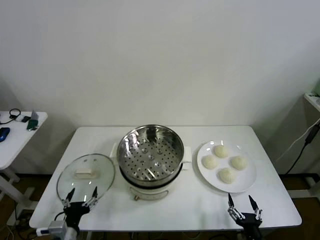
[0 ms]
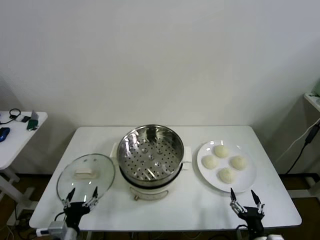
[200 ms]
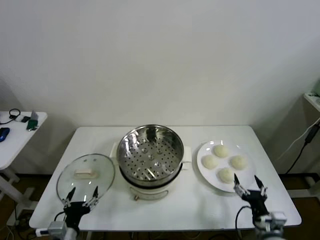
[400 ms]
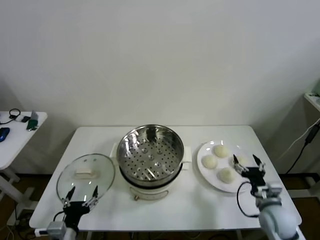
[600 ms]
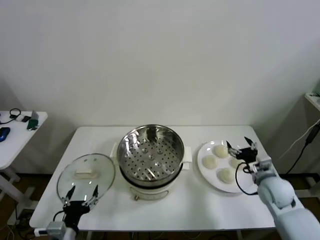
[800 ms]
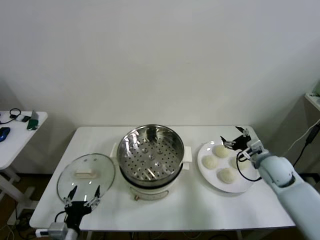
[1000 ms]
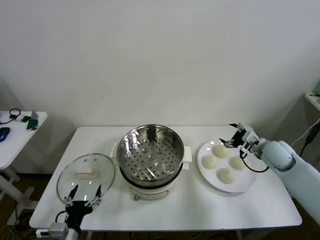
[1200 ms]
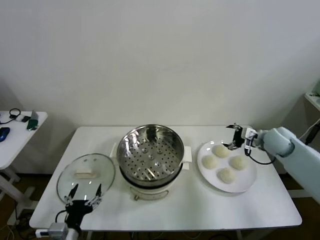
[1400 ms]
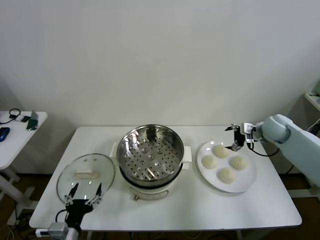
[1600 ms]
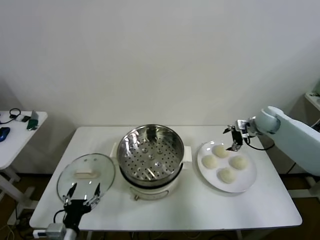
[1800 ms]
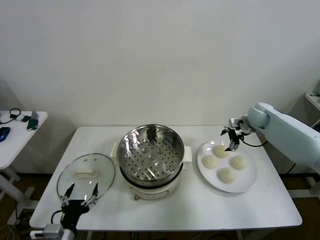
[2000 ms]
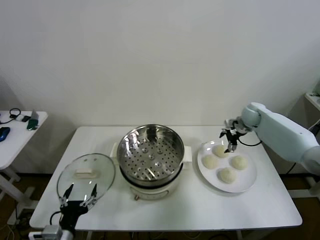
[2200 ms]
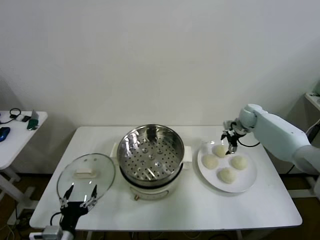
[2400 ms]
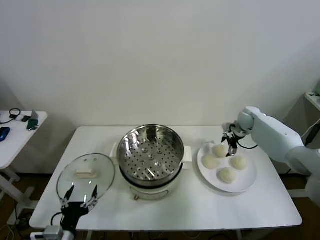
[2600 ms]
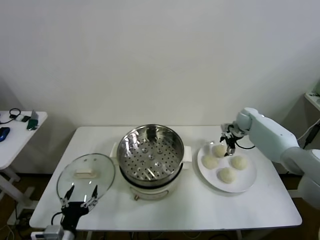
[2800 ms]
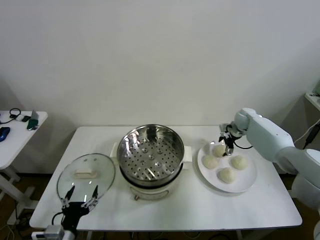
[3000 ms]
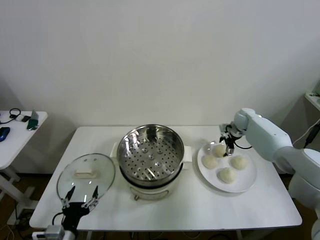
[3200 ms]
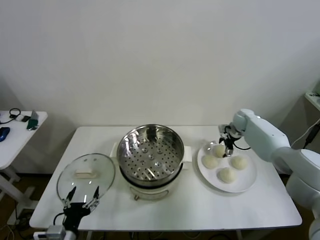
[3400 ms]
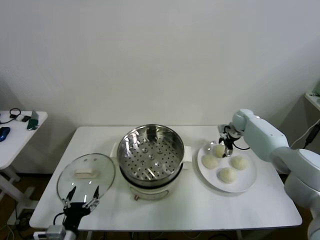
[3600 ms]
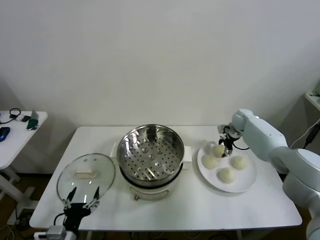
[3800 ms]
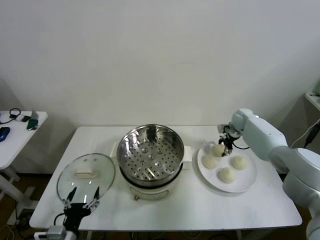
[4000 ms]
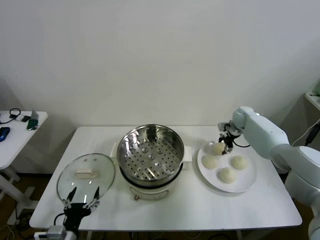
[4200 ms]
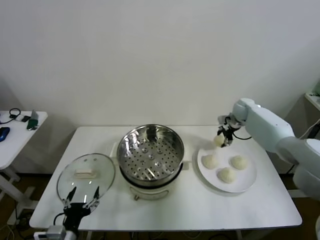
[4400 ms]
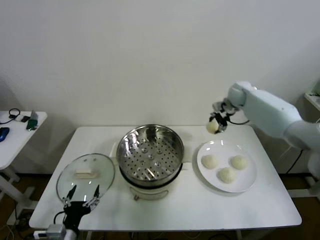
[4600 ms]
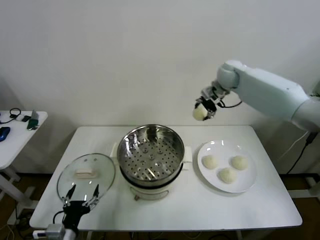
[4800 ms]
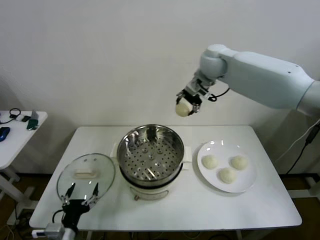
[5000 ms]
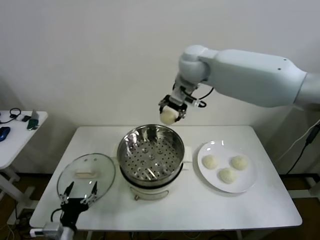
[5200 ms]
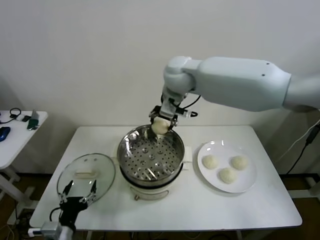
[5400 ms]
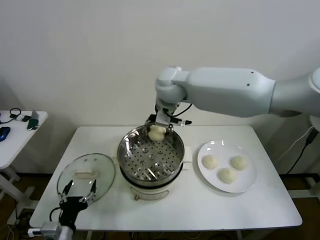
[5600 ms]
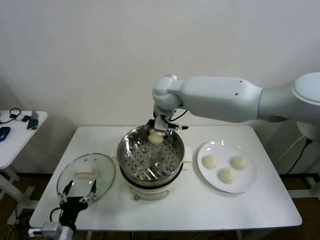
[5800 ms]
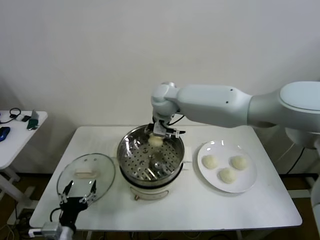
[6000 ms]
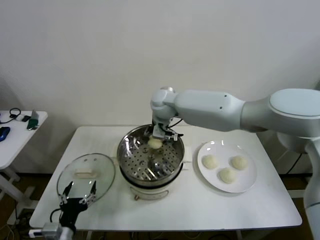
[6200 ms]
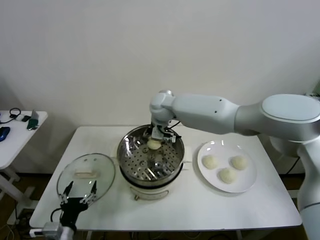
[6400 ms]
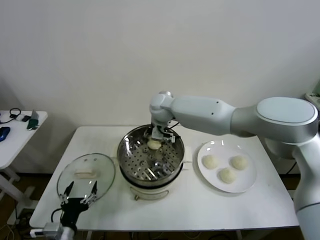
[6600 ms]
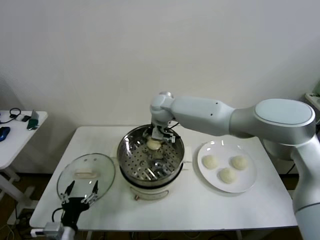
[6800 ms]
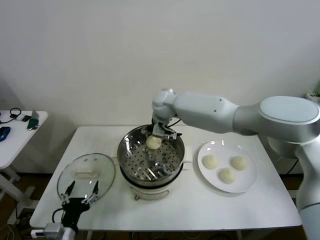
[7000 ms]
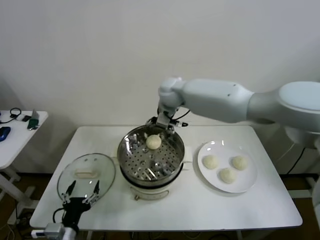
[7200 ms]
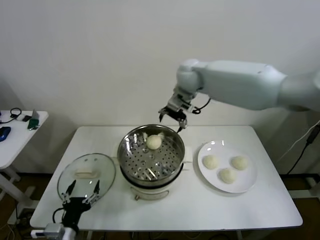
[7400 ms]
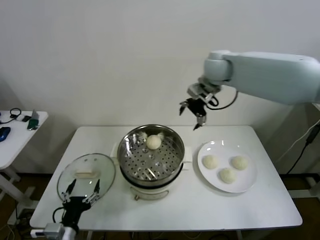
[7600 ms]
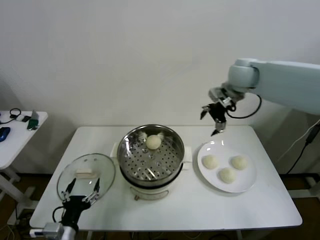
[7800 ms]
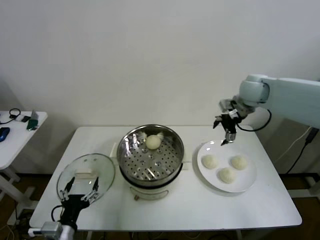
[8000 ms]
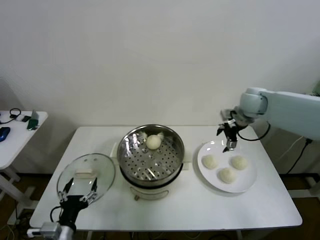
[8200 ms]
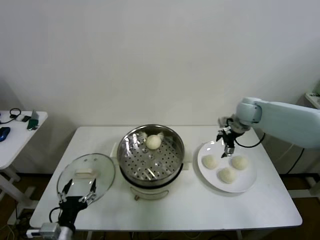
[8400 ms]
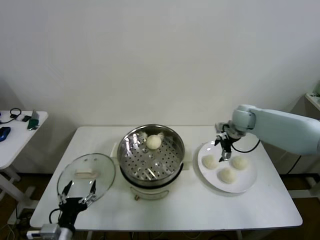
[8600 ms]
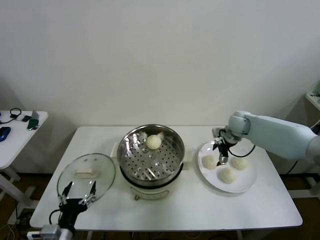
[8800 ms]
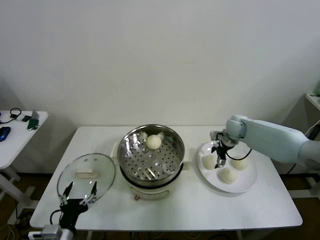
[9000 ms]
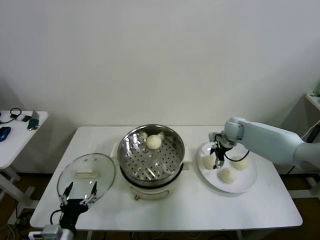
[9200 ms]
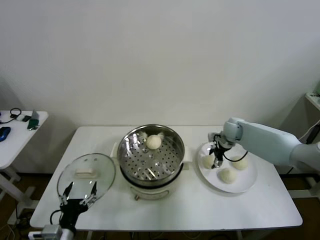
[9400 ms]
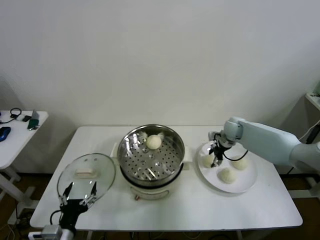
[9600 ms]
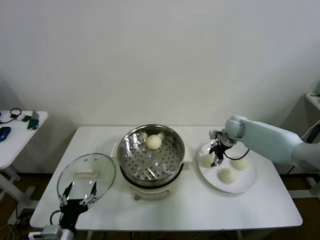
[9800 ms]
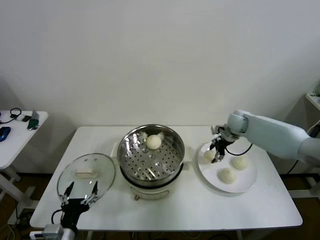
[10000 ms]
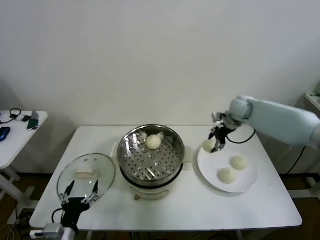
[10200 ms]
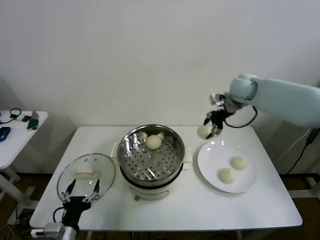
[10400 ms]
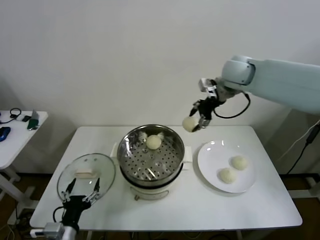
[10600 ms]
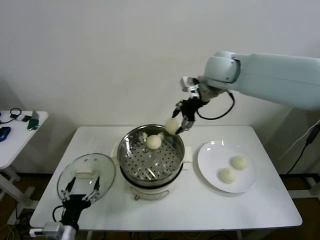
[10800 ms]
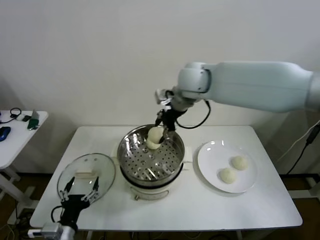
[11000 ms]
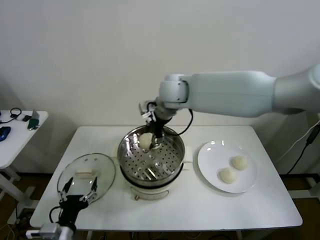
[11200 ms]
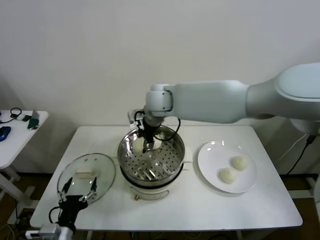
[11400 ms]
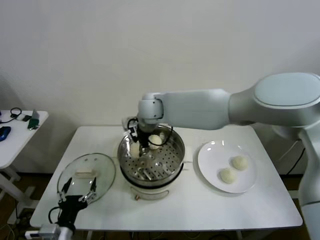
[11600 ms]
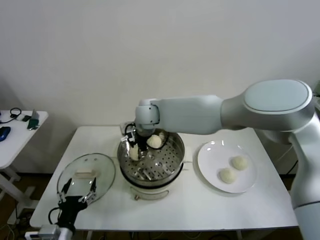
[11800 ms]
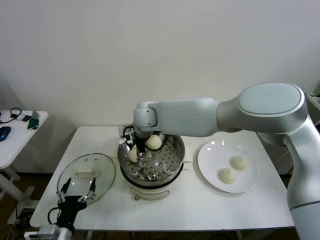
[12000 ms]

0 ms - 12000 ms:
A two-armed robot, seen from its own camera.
Step, 0 ms - 3600 ms: Grasp the baozi in the plate with right gripper.
Step, 3800 ms - 6800 ms: Place the baozi on the steamer with right gripper.
Step, 7000 ms - 9200 ms: Grasp the baozi in the plate with right gripper.
Step, 9600 ms - 11800 ms: Place the baozi on the steamer with right gripper.
1600 ms - 3000 ms: The right gripper travels forward and downward by some 10 cm.
3000 ms - 4400 ms: The right gripper is displaced upward by roughly 10 cm, and closes.
4400 ms - 6000 ms: The right gripper travels to the left by roughly 30 cm.
6000 ms - 7600 ms: The right gripper moves to the right and upward, approximately 25 cm, and opens.
7600 ms - 9000 ms: The right gripper heads downward, covering some 25 cm.
9000 ms - 10400 ms: The right gripper shifts approximately 20 cm upward, and closes its fingers.
10400 ms - 12000 ms: The right gripper travels to the left by some 30 cm, and opens up.

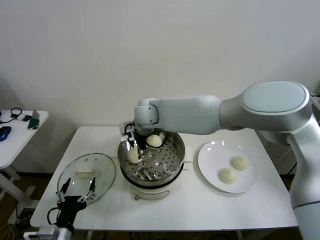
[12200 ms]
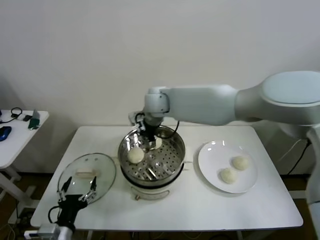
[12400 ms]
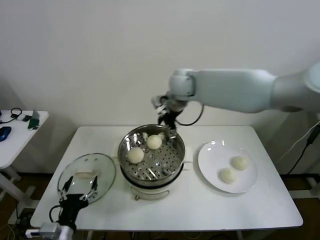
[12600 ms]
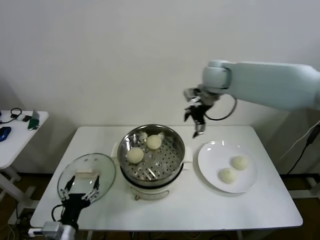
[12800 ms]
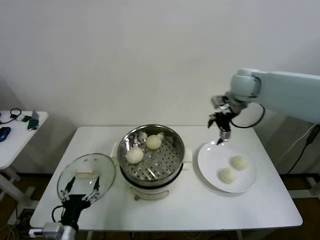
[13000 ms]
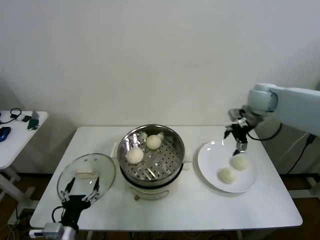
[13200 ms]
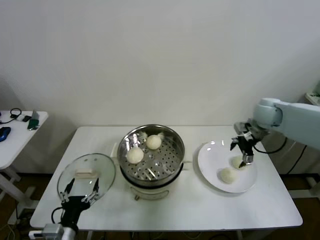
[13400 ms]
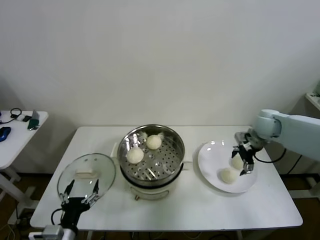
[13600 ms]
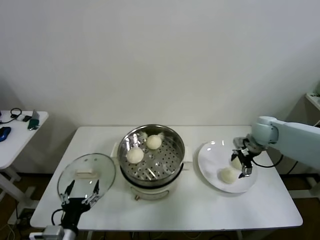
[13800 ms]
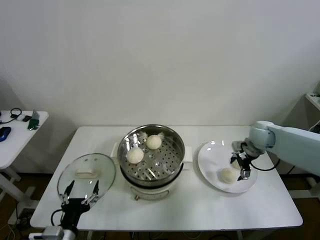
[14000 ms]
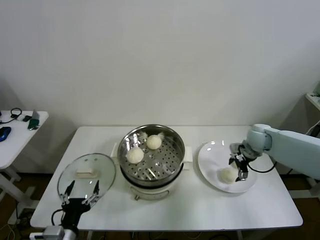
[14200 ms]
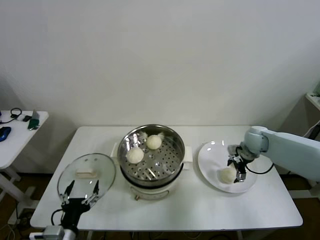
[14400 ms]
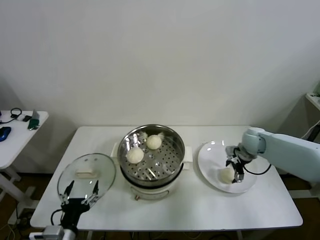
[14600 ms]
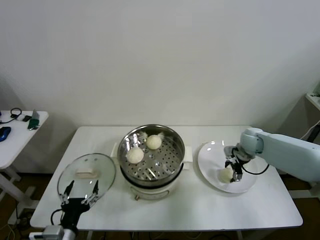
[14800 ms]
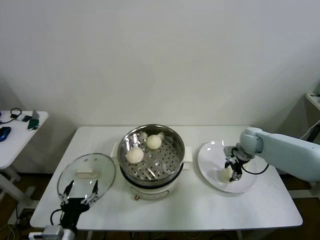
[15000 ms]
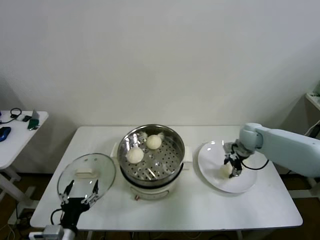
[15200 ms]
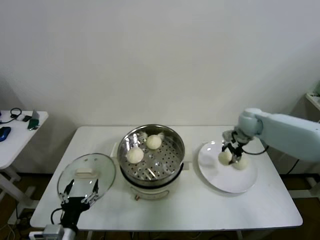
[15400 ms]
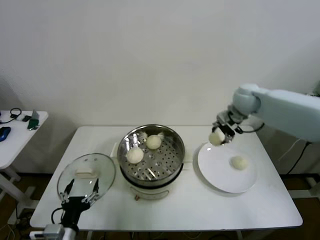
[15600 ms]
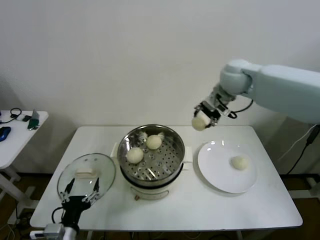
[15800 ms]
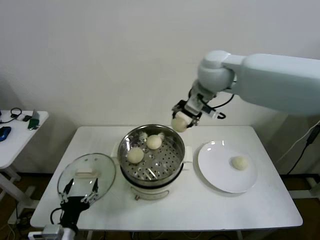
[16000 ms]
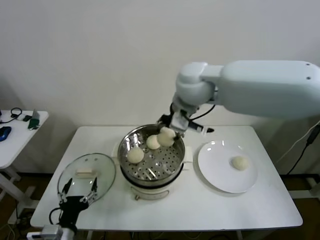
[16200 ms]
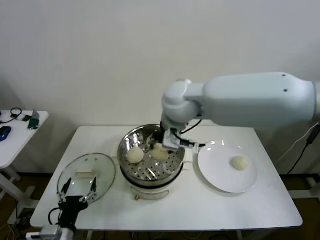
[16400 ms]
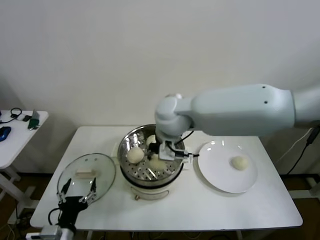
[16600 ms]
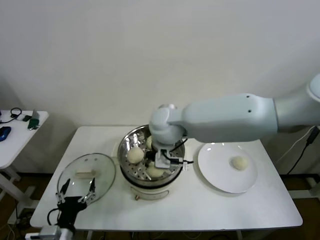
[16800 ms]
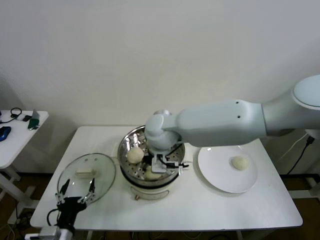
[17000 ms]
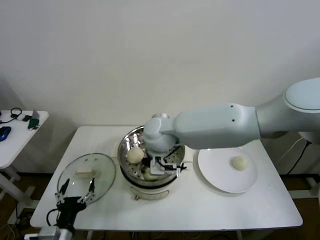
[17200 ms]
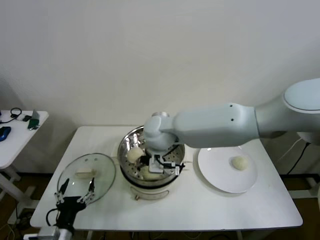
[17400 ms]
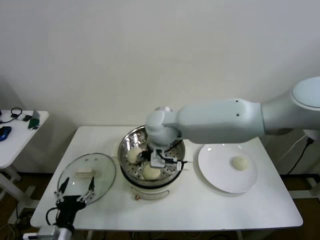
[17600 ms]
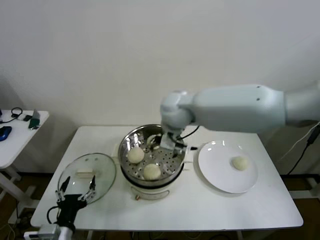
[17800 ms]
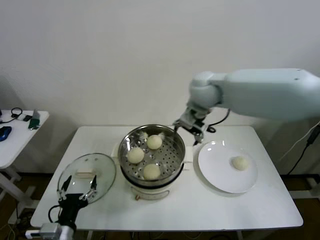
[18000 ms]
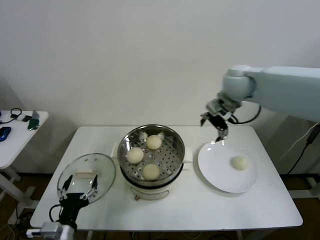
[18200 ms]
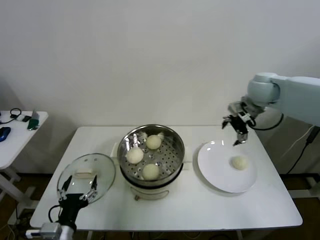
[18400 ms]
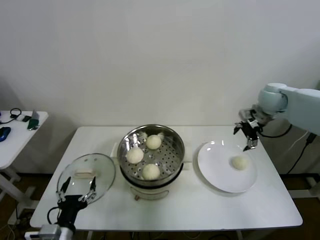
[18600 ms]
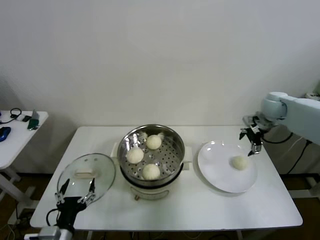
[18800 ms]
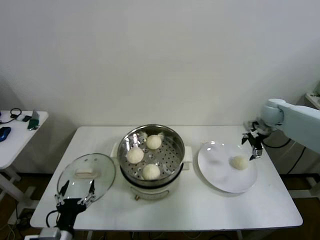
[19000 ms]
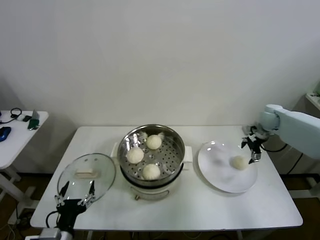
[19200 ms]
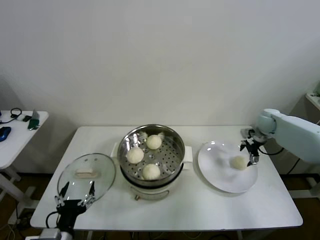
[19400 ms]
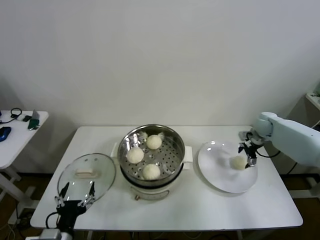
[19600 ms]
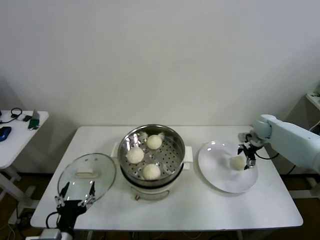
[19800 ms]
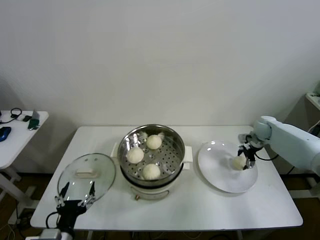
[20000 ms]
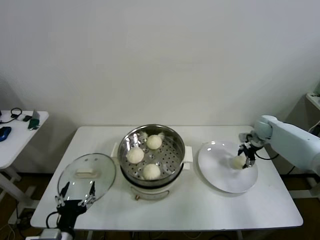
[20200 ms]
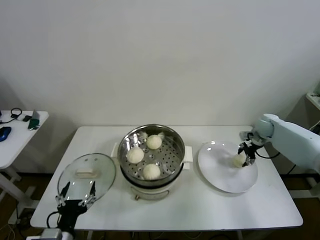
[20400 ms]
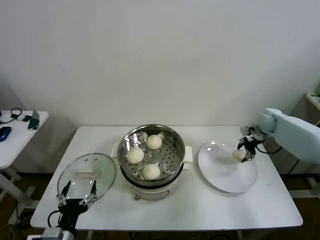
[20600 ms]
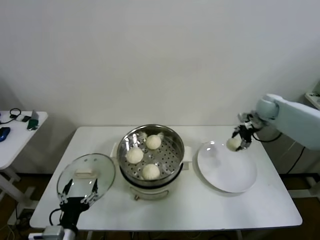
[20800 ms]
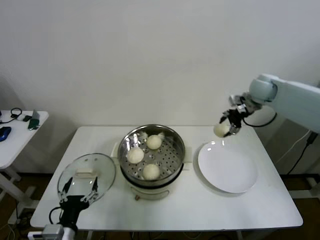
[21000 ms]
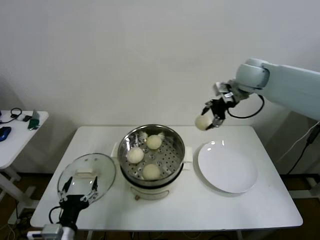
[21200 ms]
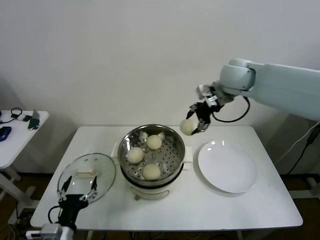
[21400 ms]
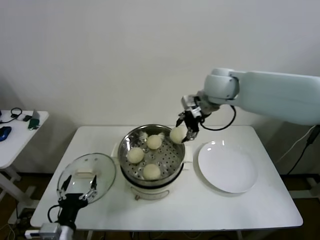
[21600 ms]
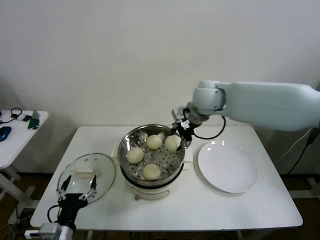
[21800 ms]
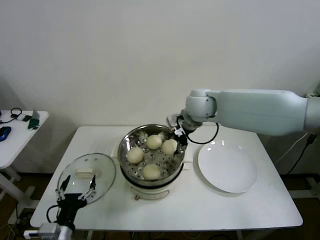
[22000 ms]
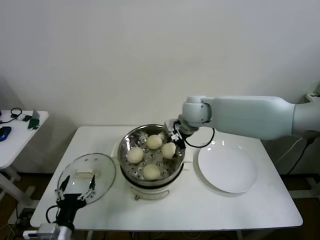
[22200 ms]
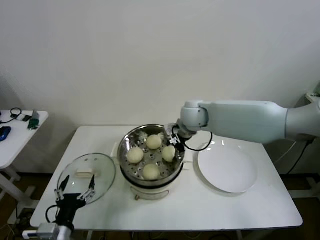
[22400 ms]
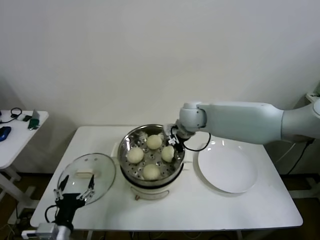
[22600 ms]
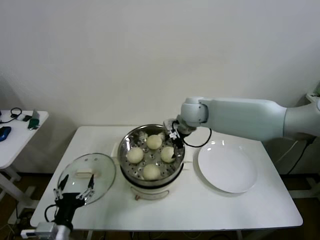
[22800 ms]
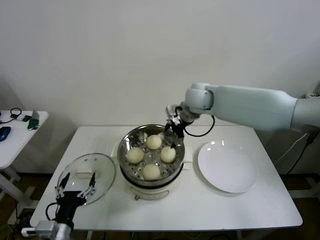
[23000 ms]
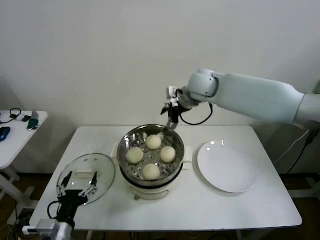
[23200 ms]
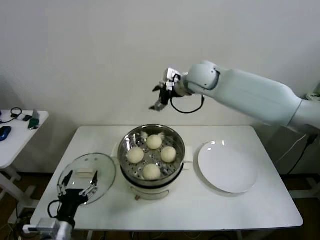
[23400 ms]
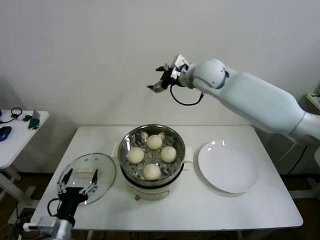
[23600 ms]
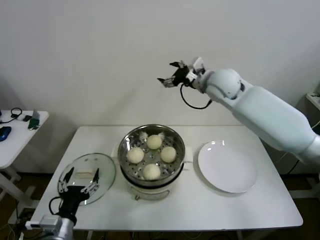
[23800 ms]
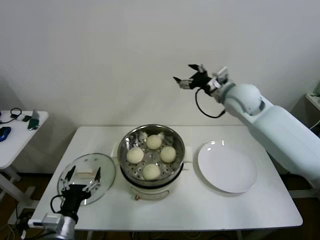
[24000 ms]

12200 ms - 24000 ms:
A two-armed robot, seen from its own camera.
Step, 12200 ms - 14600 ms: Grasp the baozi in the plate with right gripper.
Step, 14800 ms - 17200 ms: Place the baozi on the steamer with right gripper.
Step, 17400 ms - 20000 ms: Grasp the baozi in the plate with right gripper.
Step, 20200 ms - 22600 ms: Place the baozi on the steamer with right gripper.
12200 ms - 13600 ms: The right gripper is displaced to the right by approximately 40 cm.
13600 ms - 15200 ms: The right gripper travels downward by roughly 5 cm, and closes.
15200 ms - 16600 ms: The right gripper is displaced to the left and upward by approximately 35 cm.
16600 ms - 18200 ms: The right gripper shifts roughly 25 cm to the right and forward, and opens.
18200 ms - 19600 ms: The right gripper shifts about 30 cm downward and to the right.
19600 ms - 21000 ms: The right gripper goes roughly 20 cm upward and to the left, and closes up.
21000 ms - 22600 ms: The right gripper is displaced to the left by about 25 cm.
22600 ms - 24000 ms: The right gripper travels to the right and upward by some 15 cm, and opens up.
